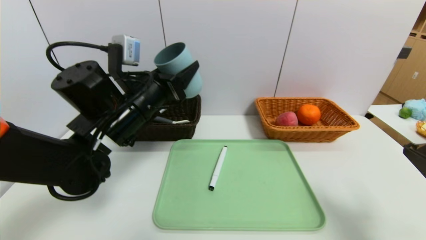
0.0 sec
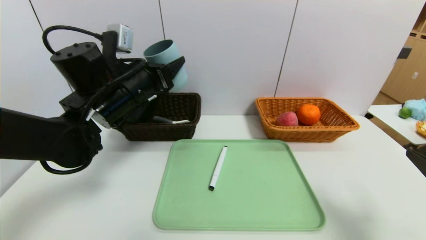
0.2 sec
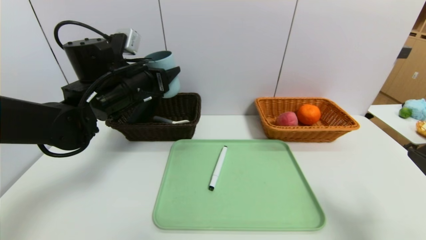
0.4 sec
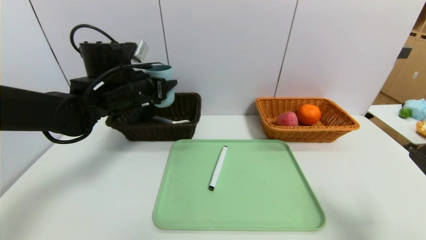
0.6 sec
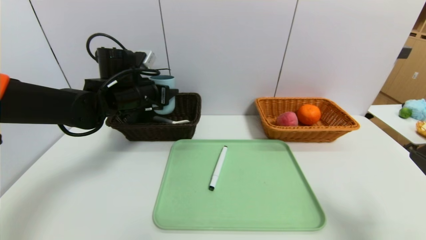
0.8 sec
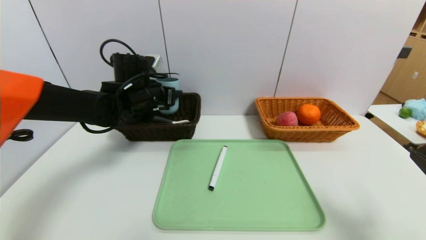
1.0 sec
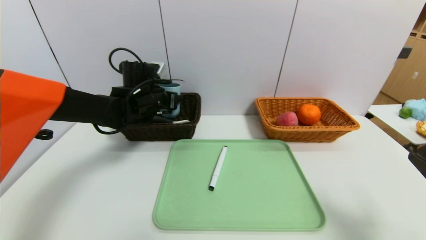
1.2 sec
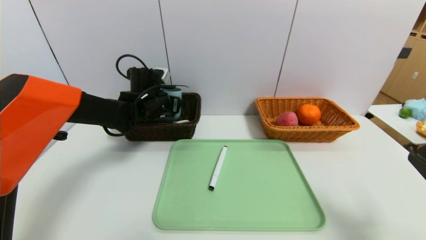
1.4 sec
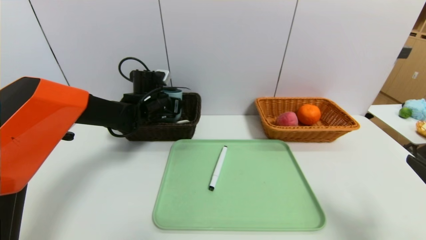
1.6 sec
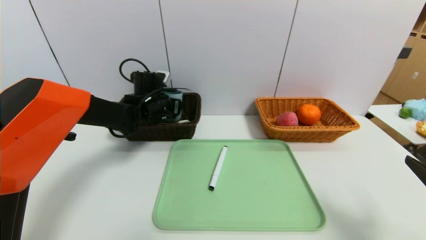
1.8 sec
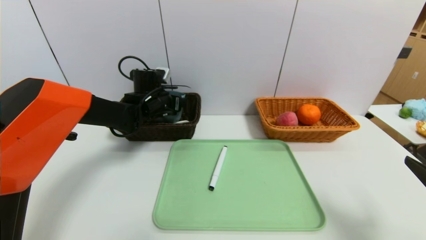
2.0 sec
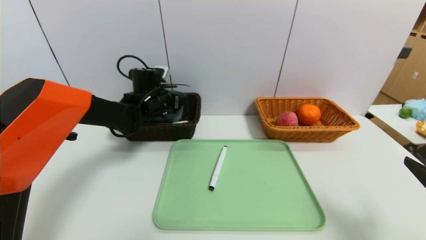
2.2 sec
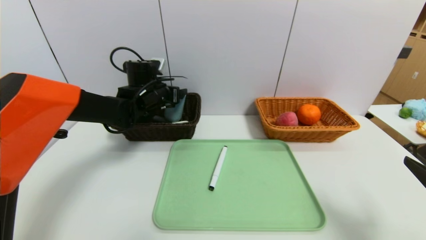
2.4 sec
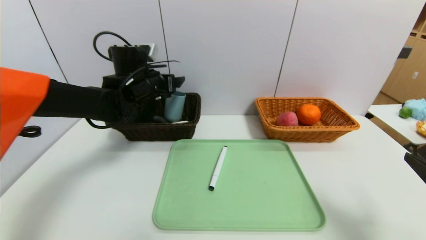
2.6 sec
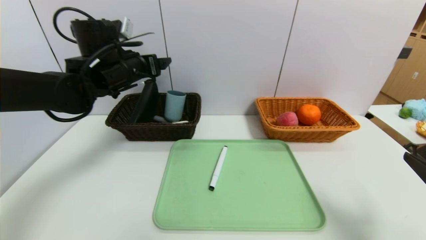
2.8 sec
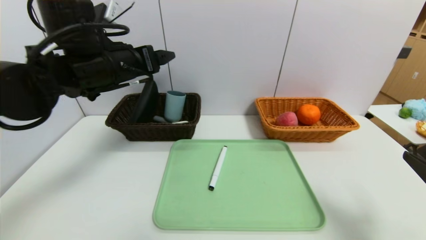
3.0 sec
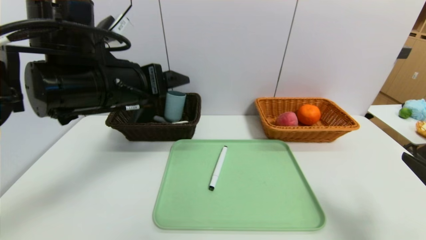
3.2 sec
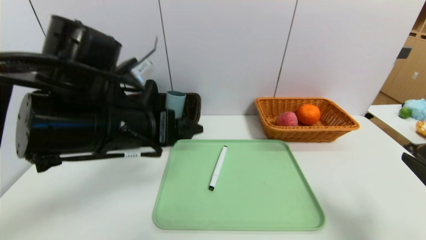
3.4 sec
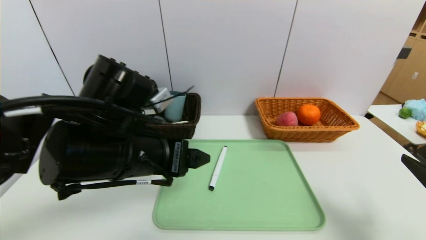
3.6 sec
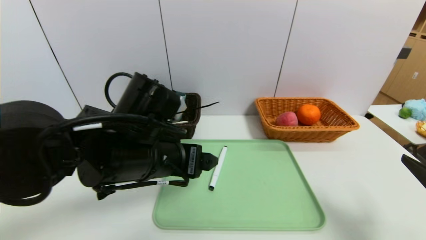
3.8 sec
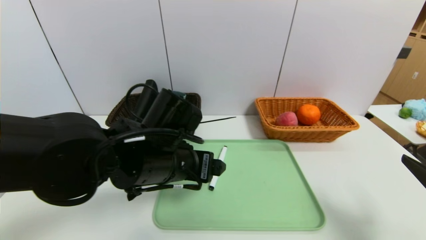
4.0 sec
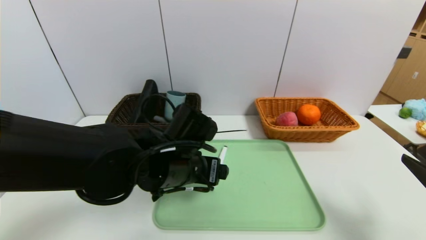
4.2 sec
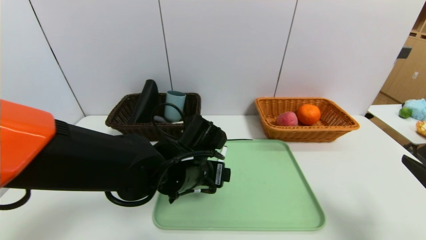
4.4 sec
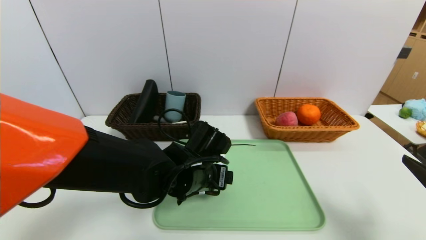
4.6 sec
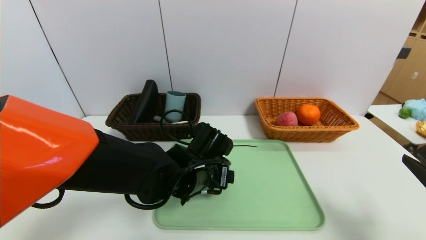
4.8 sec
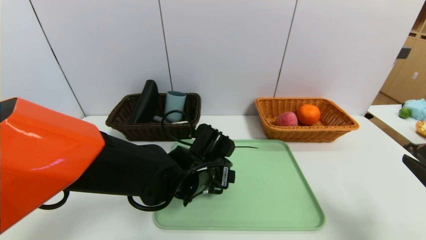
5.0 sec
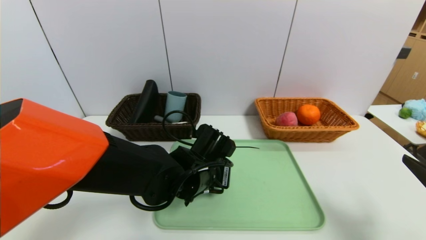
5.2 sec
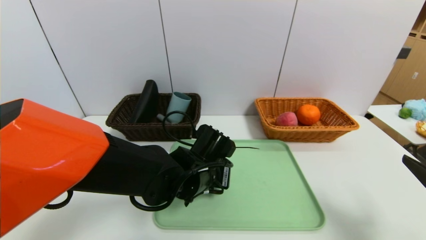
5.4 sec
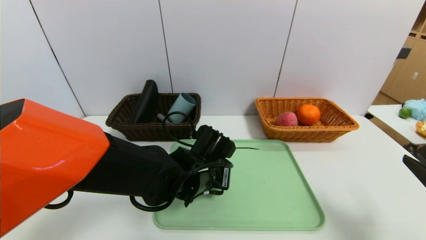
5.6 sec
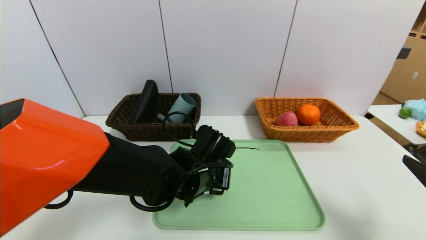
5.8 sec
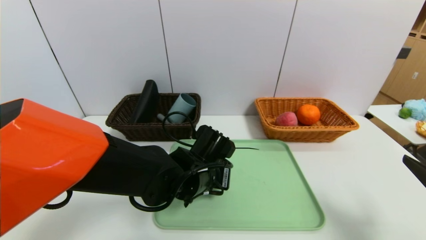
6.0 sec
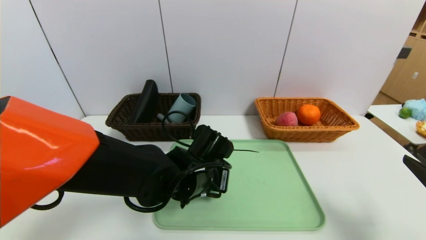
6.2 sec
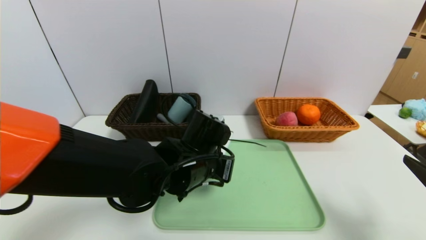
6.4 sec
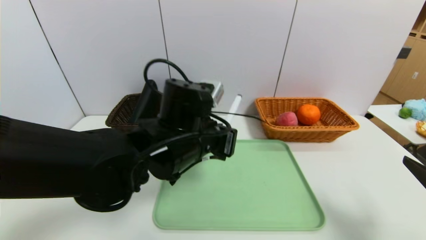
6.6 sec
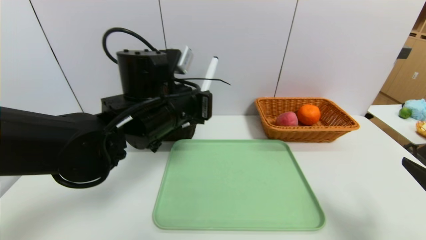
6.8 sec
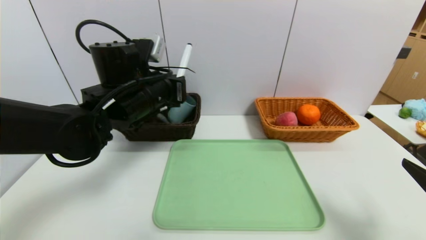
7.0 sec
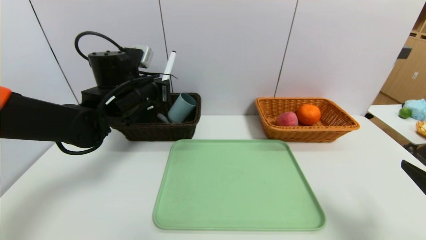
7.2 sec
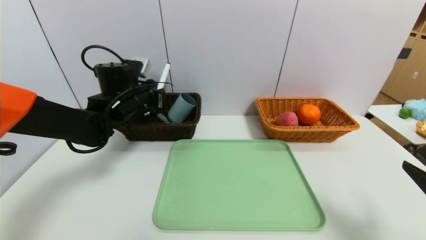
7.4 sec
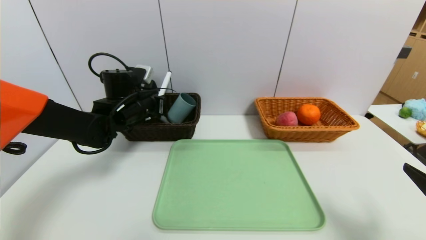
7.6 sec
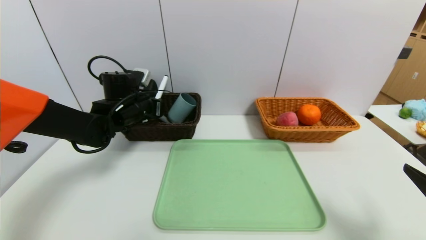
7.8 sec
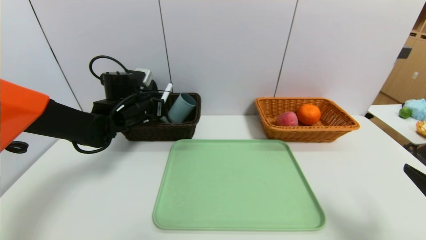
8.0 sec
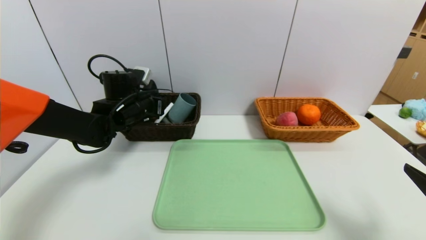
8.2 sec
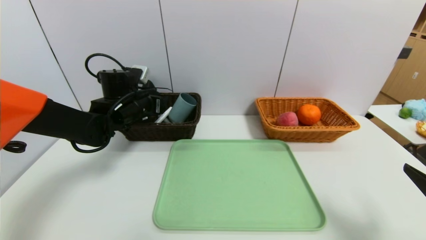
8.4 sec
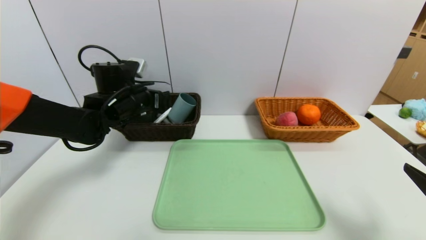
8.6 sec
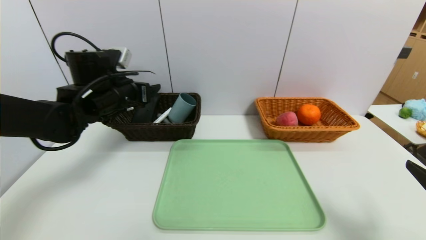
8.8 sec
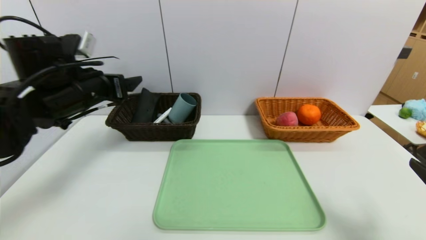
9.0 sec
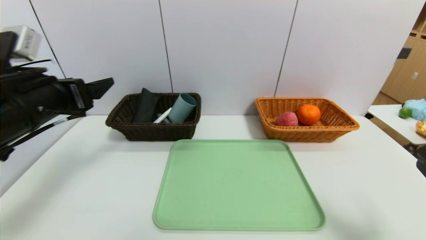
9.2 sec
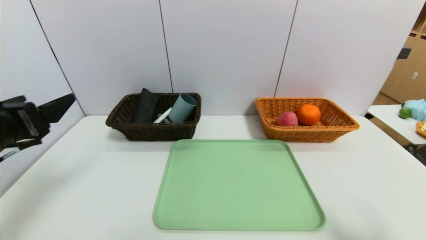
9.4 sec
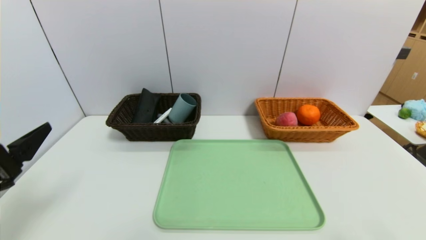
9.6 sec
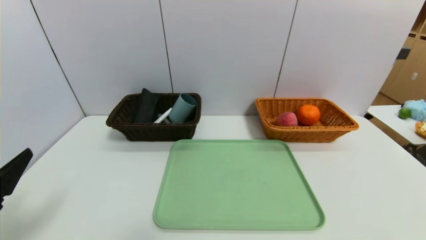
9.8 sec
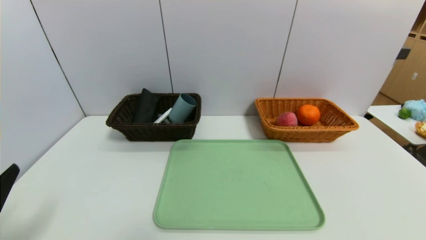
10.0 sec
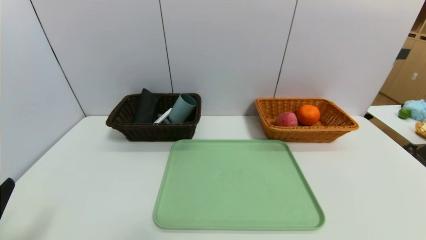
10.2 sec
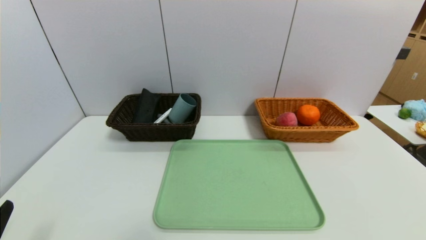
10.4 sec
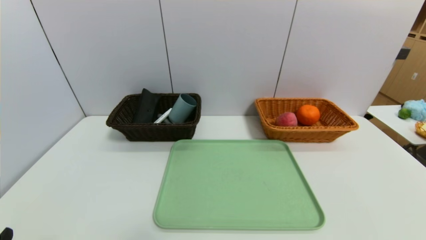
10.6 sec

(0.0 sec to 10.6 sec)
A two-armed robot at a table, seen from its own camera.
Task of the whole recording: place the food in the right basket with the right gripper, and place the non food items in the left basket with the left gripper.
Step, 0.0 sec - 2.4 sec: Grasp the blue cup and put it in the left basket.
Step, 2.6 sec - 9.0 sec: Grasp the blue marker and put it in the left basket.
0.0 sec - 1.6 sec: The left gripper travels forward and downward by about 15 cm.
1.6 sec - 3.0 sec: The left gripper shifts approximately 20 cm upward and backward, and opens up.
3.0 sec - 4.6 sec: The left gripper travels downward and to the right by some 25 cm.
4.6 sec - 6.0 sec: The left gripper closes up.
6.0 sec - 7.6 sec: The left gripper heads to the left, forward and upward, covering about 20 cm.
7.6 sec - 9.0 sec: The left gripper heads backward and upward, covering about 10 cm, and opens.
9.0 sec - 10.6 sec: The right gripper heads backward, covering roughly 15 cm. Meanwhile the left gripper travels backward and downward by approximately 35 cm.
